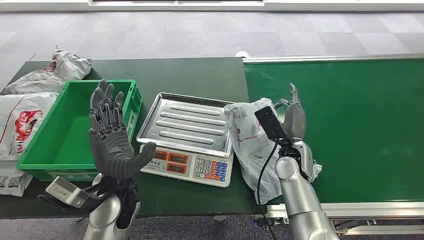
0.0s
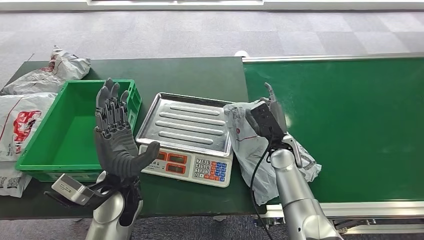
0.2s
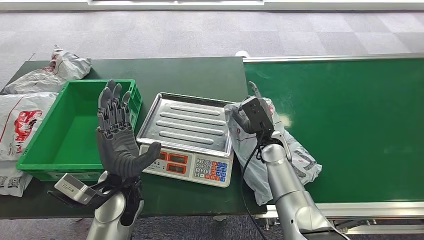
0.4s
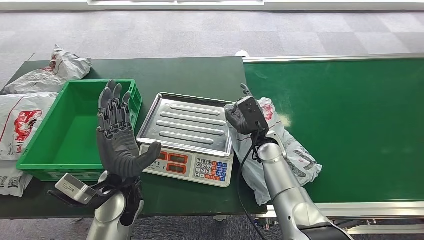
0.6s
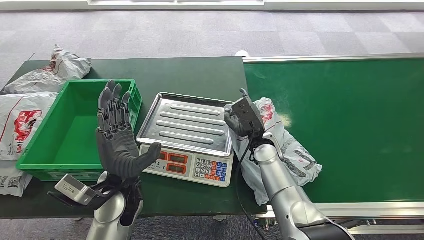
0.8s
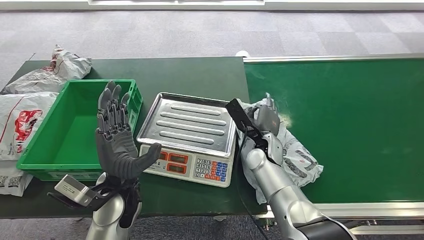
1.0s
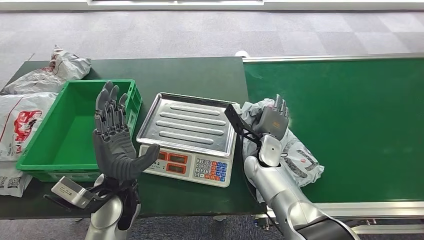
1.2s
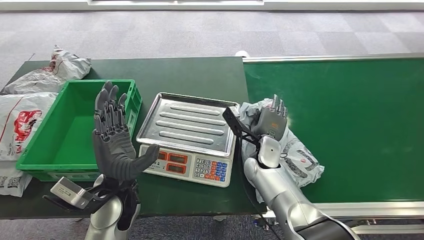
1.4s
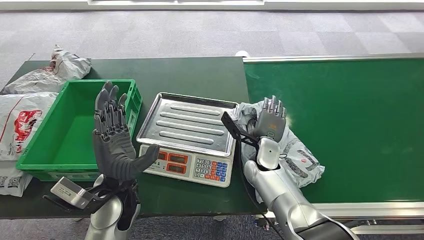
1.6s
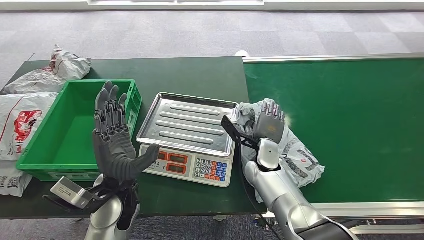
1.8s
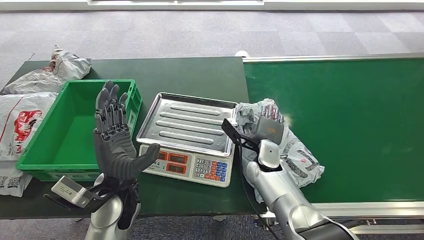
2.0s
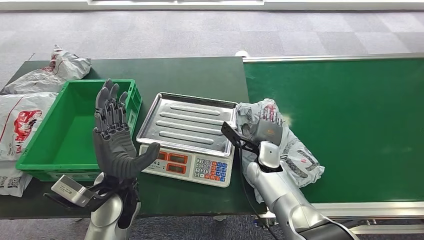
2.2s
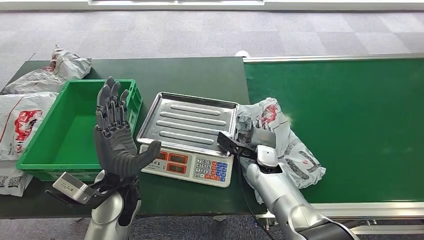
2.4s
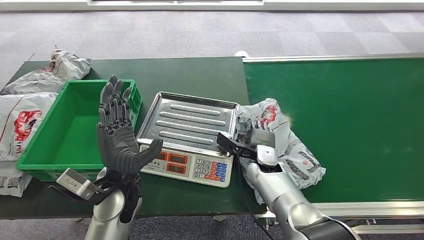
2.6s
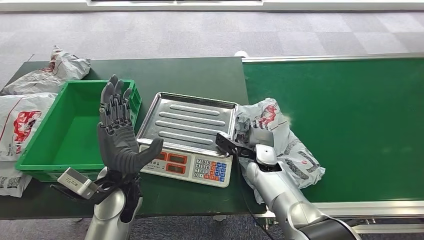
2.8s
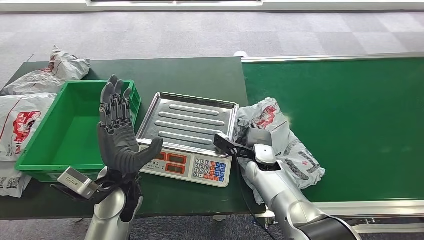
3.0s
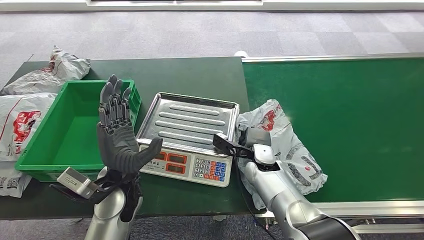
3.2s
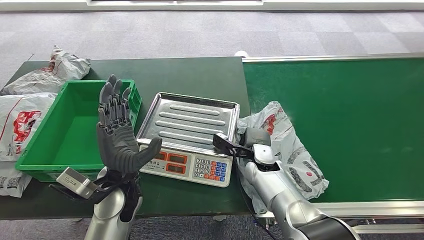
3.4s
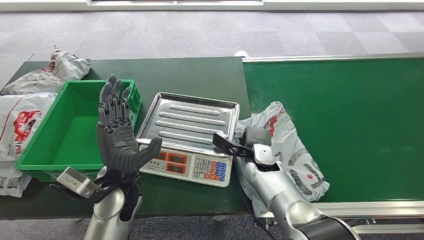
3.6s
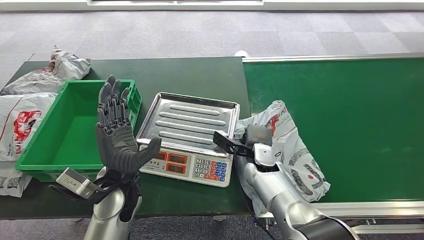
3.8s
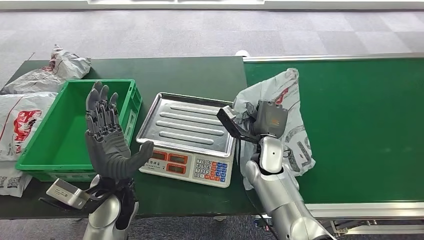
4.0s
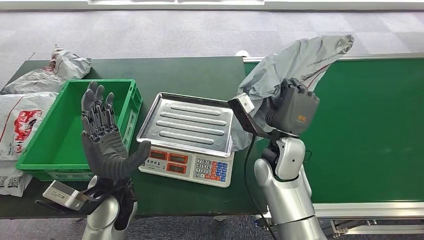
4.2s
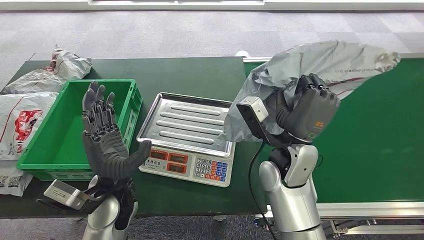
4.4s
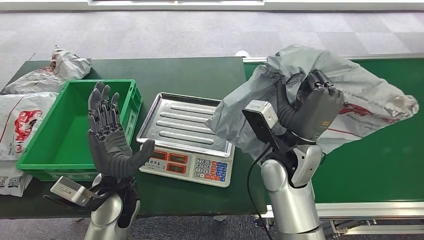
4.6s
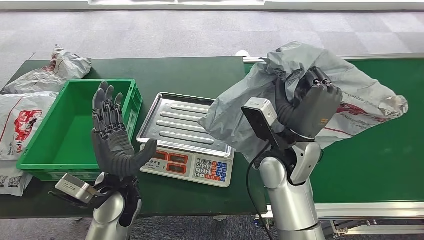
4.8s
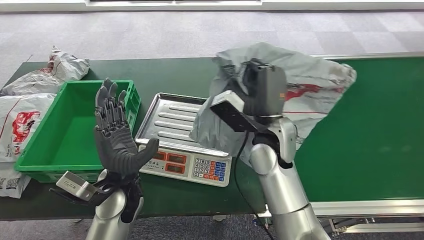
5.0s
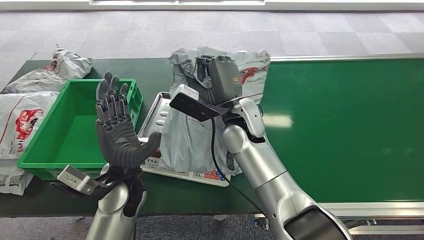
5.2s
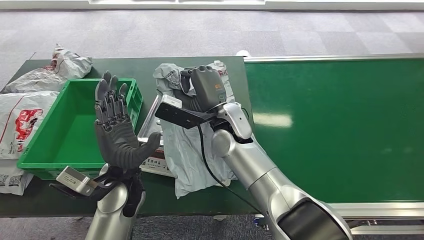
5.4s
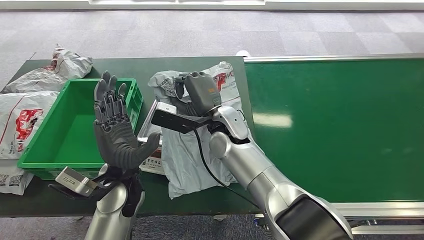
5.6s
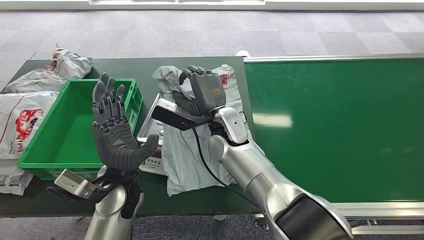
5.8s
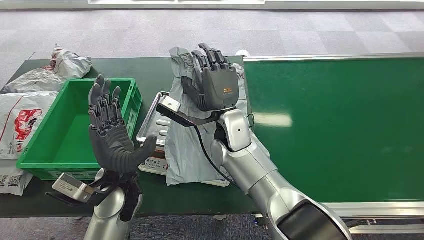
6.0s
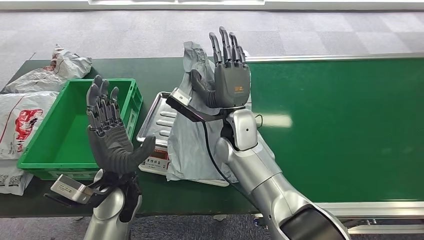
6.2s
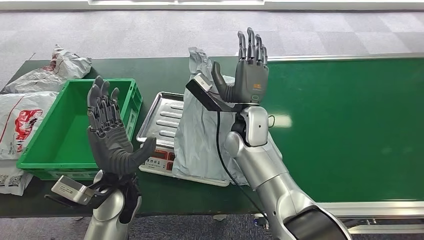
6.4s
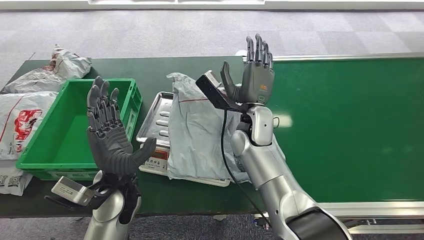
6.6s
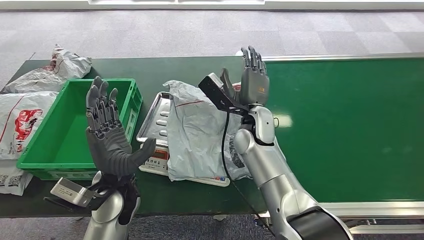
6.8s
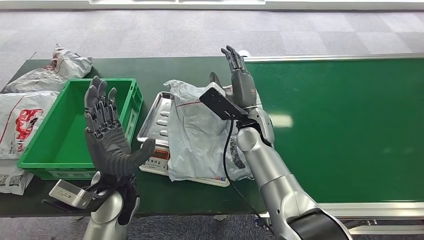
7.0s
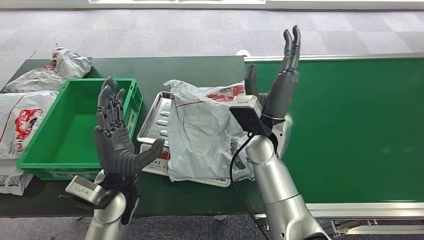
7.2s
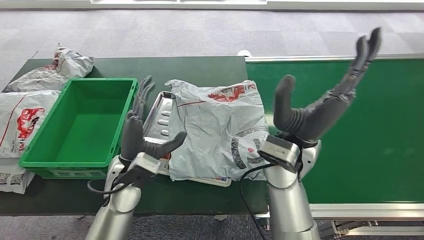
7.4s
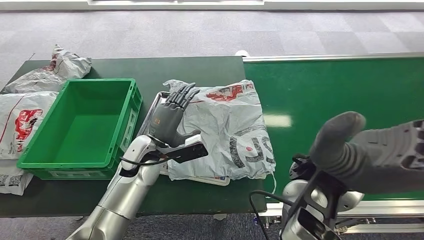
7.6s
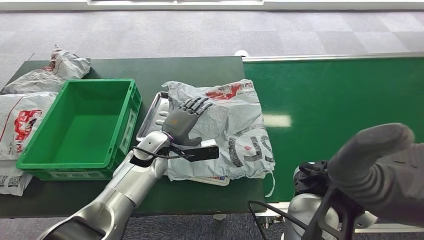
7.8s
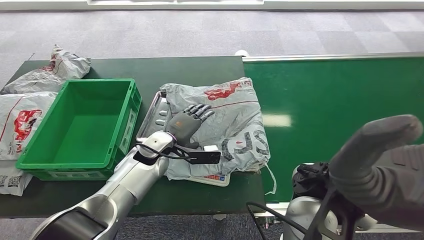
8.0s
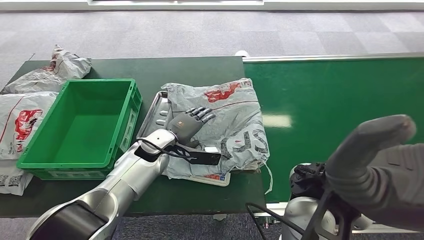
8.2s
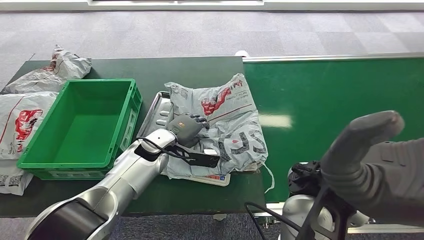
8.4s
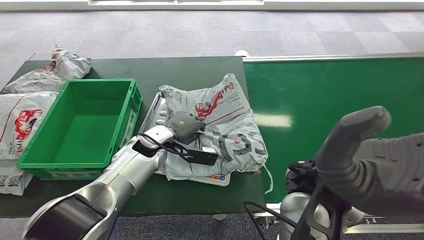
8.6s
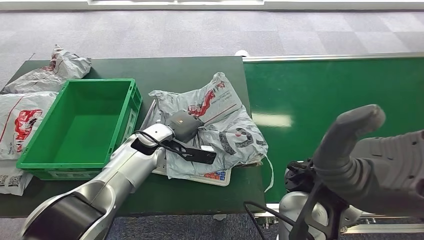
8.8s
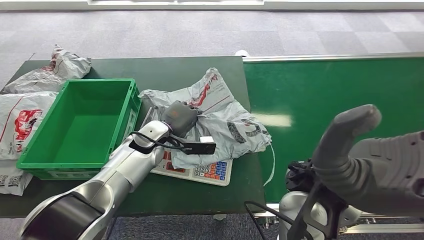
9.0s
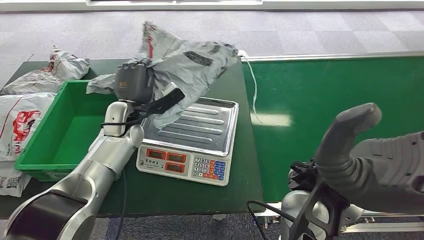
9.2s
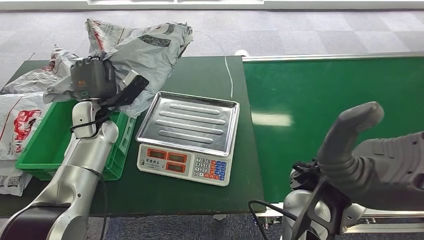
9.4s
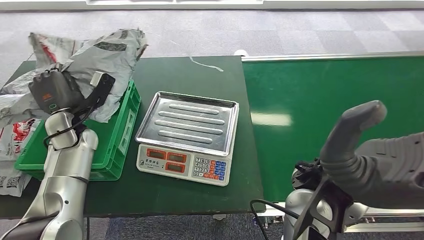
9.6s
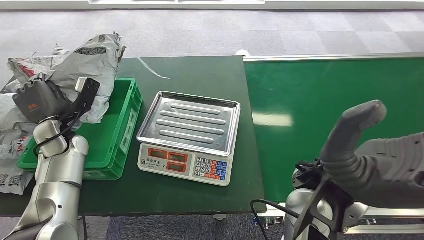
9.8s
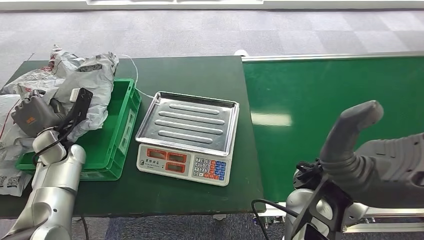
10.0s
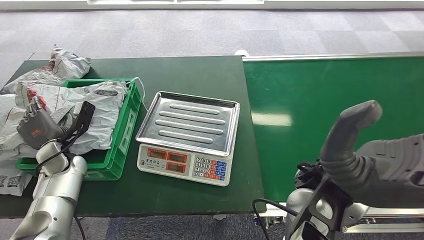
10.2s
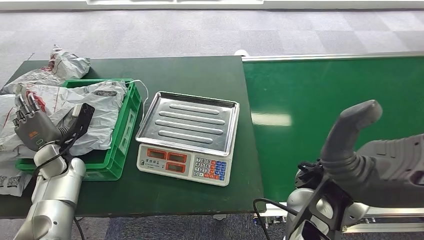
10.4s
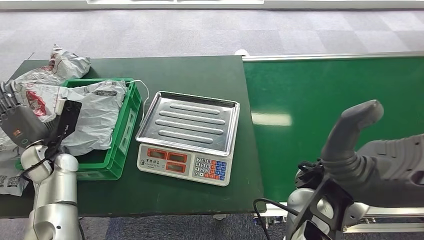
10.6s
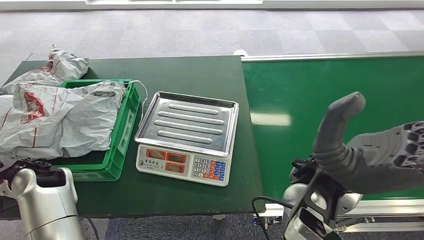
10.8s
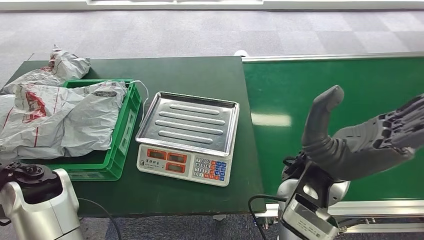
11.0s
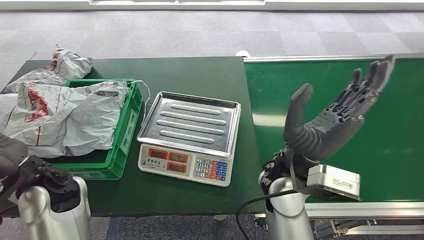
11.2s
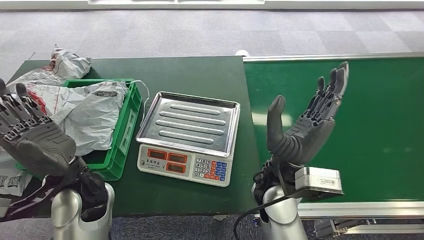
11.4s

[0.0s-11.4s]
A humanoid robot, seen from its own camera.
Task of the whole recording: Weigh the package on the weighing device and place it in the left basket.
Step, 0.0s to 4.8s: Pick up the package from the conveyor belt.
Step, 5.0s to 7.0s: Place the package onto the inbound machine.
Step, 7.2s to 9.4s: Pick up the package from the inbound machine.
Step, 9.6s to 11.4s: Place the package into the parcel locker.
